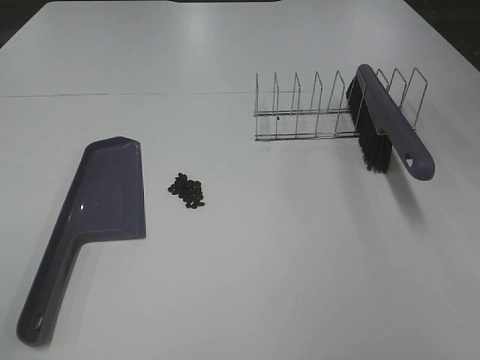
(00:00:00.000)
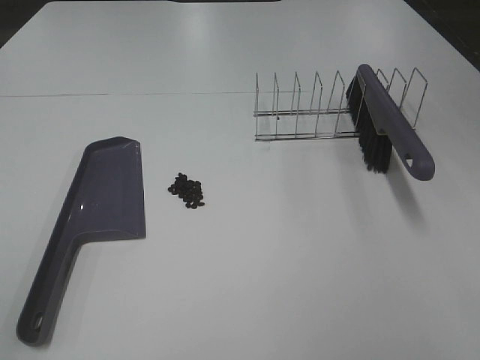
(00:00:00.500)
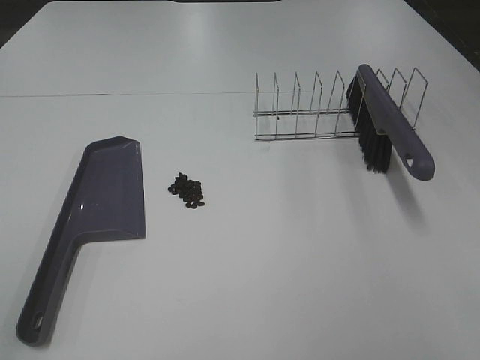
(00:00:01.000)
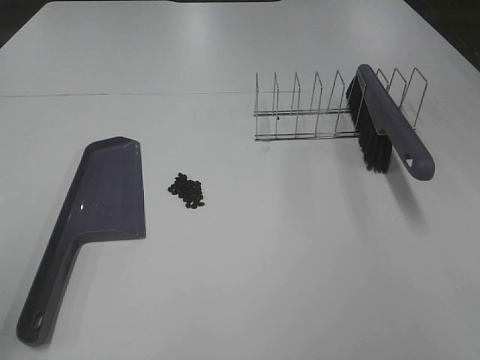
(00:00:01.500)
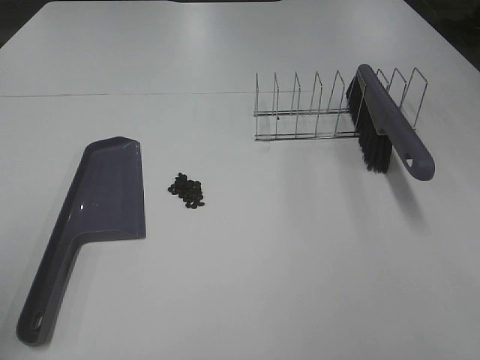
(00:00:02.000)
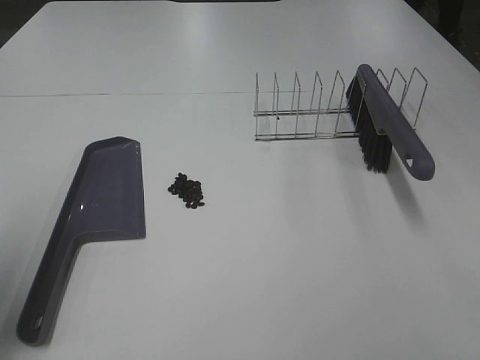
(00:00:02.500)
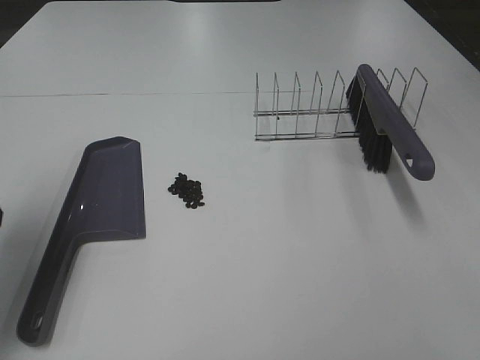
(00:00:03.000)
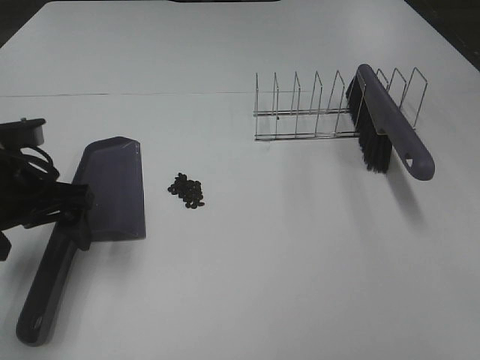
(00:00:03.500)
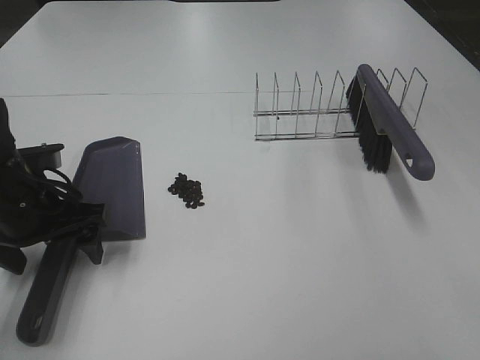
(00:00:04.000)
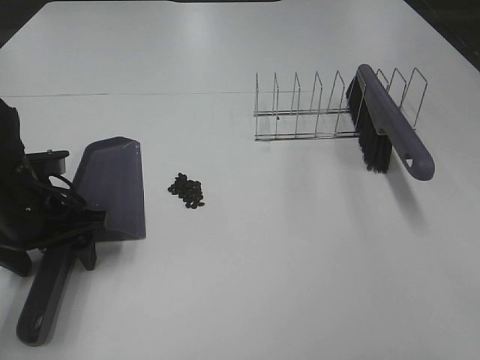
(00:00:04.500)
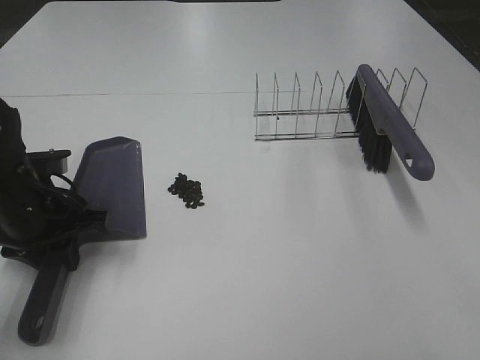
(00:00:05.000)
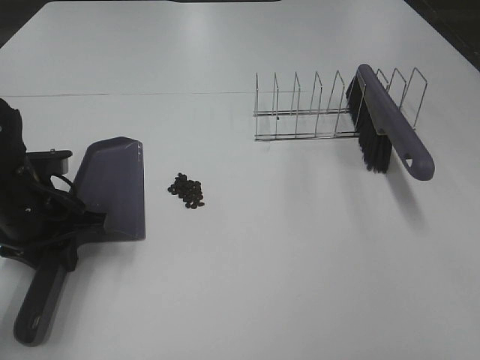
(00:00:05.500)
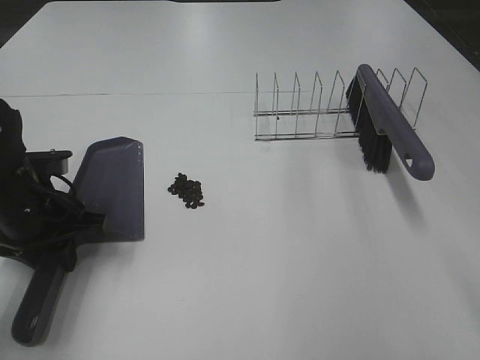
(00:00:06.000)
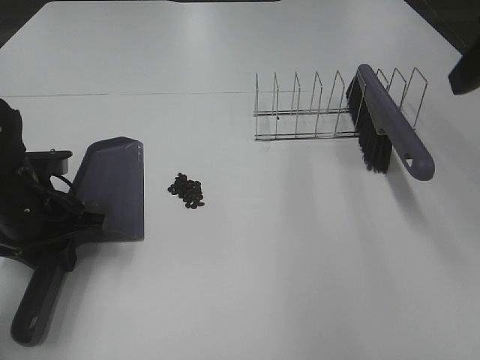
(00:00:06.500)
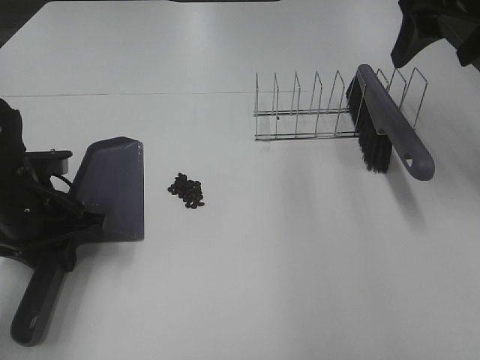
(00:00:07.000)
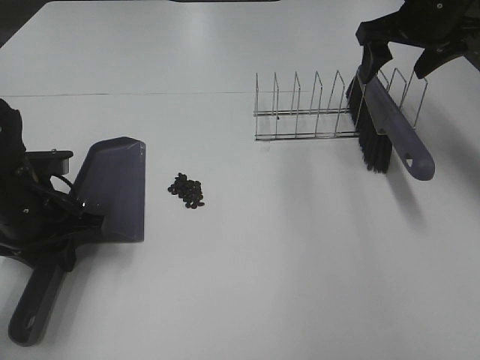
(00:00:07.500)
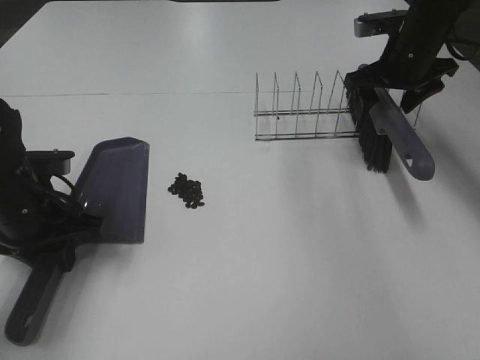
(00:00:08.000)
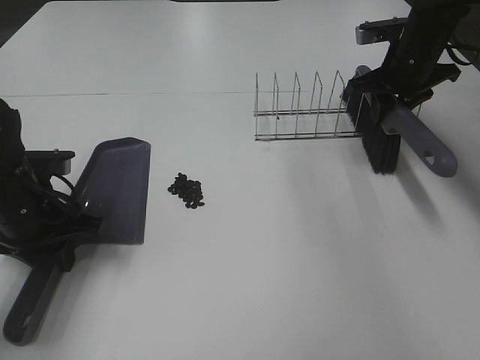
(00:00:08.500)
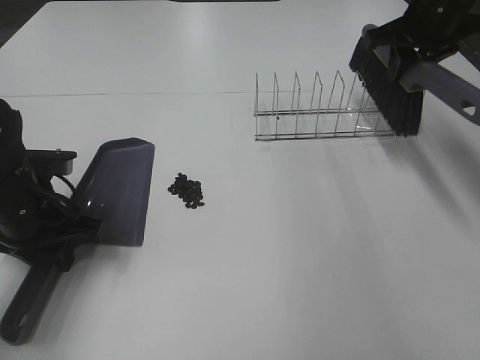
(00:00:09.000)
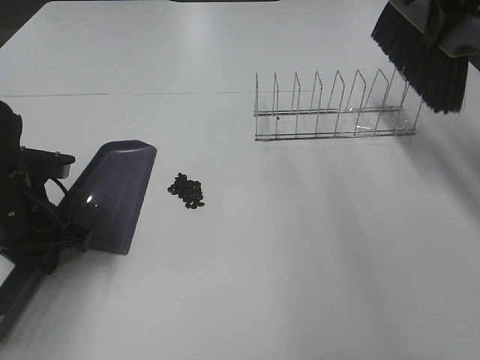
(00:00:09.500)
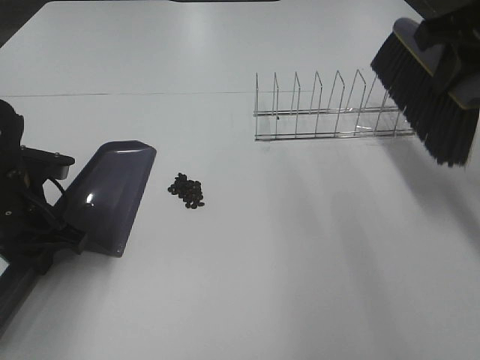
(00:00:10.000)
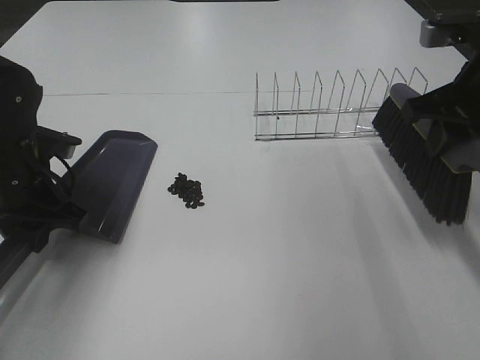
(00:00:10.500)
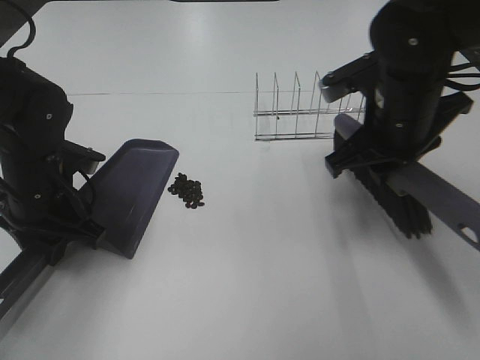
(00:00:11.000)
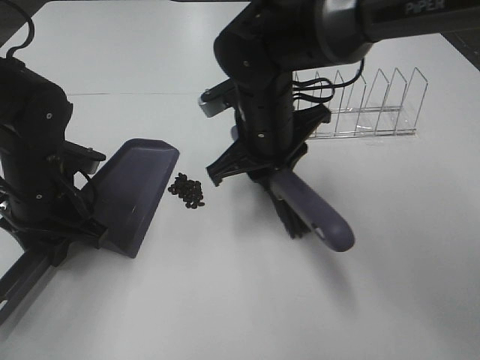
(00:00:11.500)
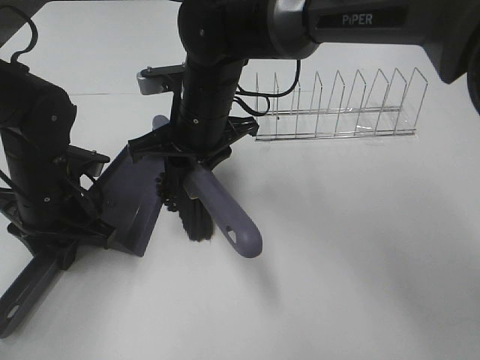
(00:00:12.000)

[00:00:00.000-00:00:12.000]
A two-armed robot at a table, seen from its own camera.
Task of the whole recording: Sweep Coffee Bean.
Step, 00:00:00.000 to 00:00:04.500: Left hand: grab the dustpan.
Step, 00:00:05.000 to 00:00:08.000: Right hand:grab the broom.
00:00:02.000 to 00:00:04.000: The left gripper heads forward, downward and to the right, covering roughly 25 cm.
00:00:04.000 to 00:00:06.000: The left gripper closes up.
00:00:06.000 to 00:00:08.000: The right gripper is displaced forward by some 35 cm.
00:00:08.000 to 00:00:10.000: The right gripper goes some 20 cm backward and upward, and closes its fingers.
00:00:10.000 to 00:00:12.000: The right gripper goes about 30 cm to the left and downward.

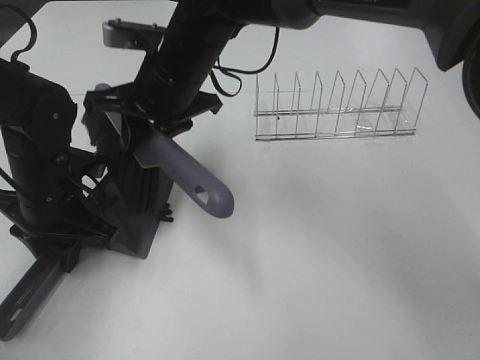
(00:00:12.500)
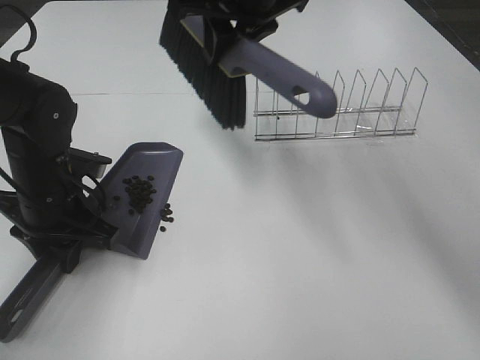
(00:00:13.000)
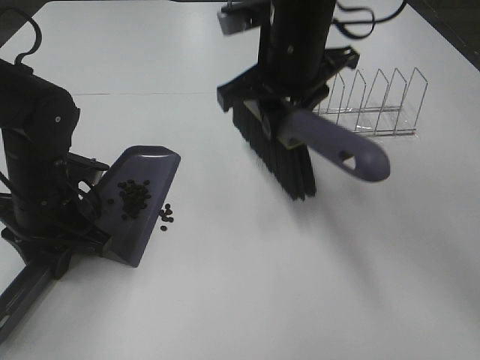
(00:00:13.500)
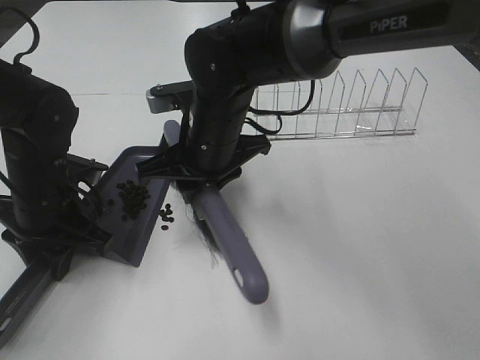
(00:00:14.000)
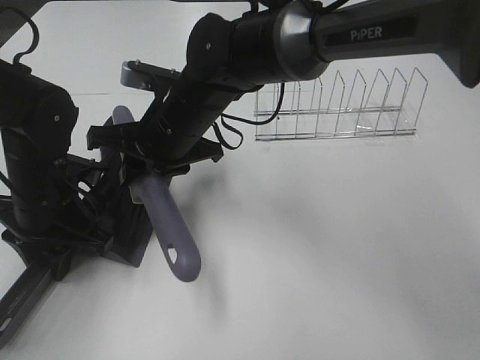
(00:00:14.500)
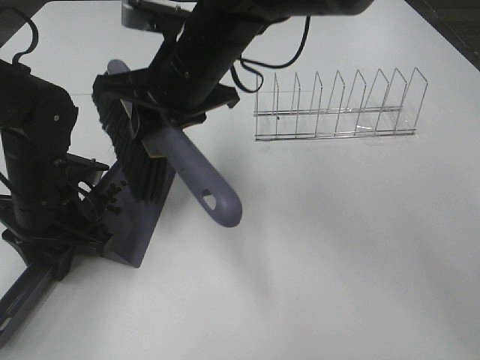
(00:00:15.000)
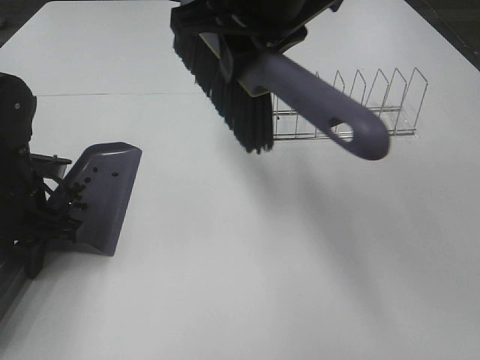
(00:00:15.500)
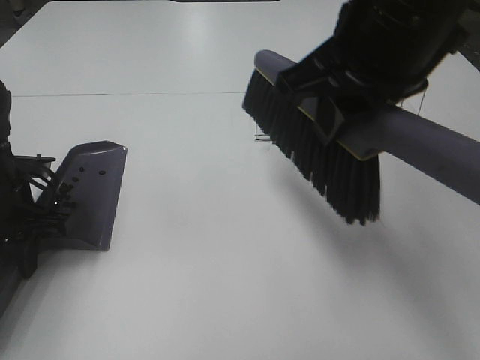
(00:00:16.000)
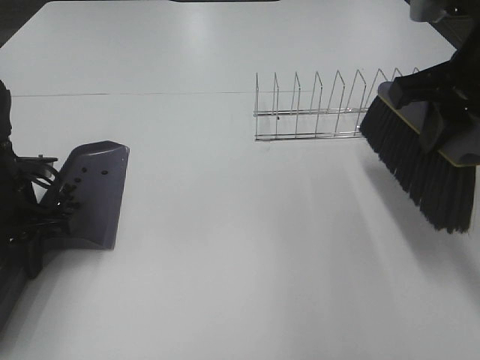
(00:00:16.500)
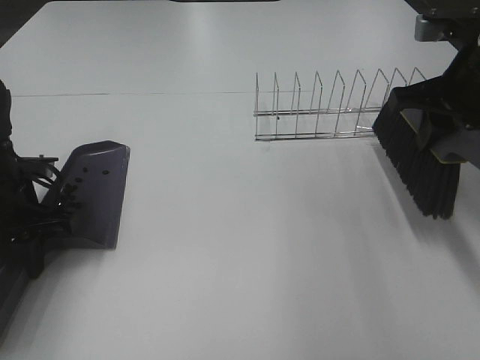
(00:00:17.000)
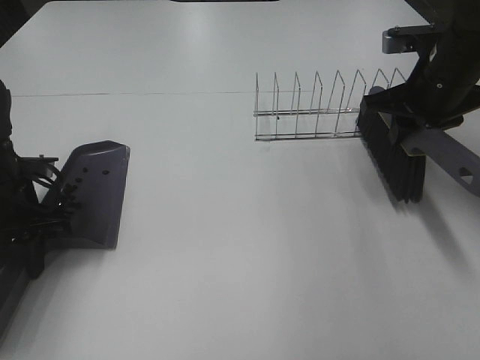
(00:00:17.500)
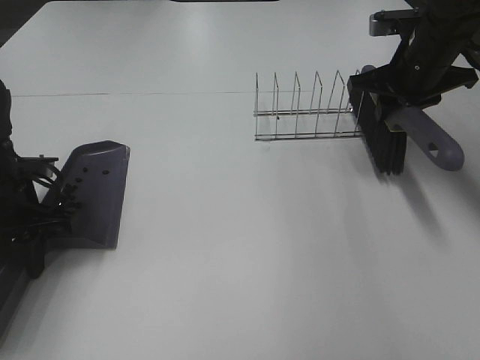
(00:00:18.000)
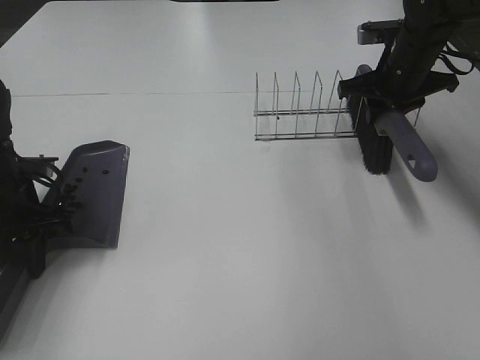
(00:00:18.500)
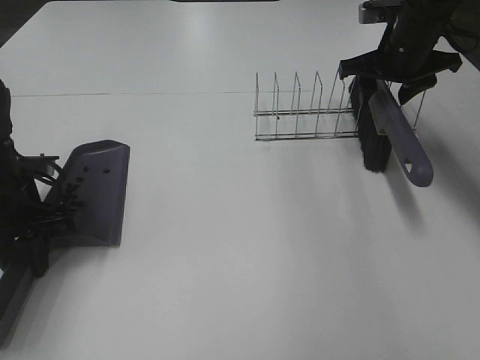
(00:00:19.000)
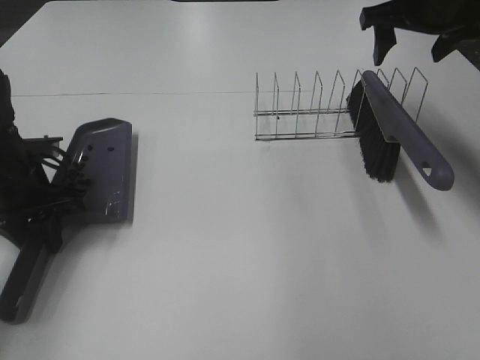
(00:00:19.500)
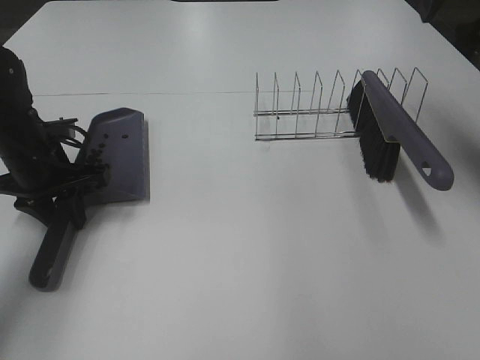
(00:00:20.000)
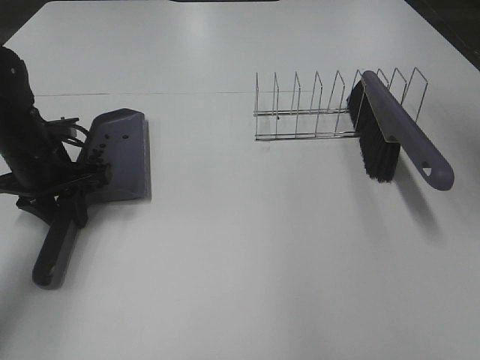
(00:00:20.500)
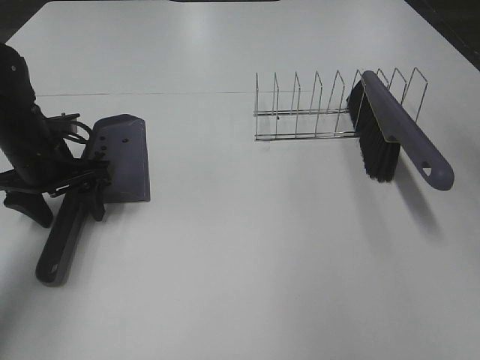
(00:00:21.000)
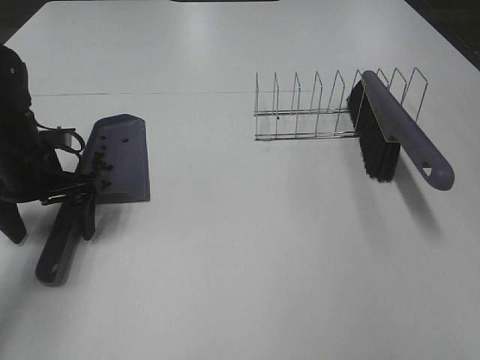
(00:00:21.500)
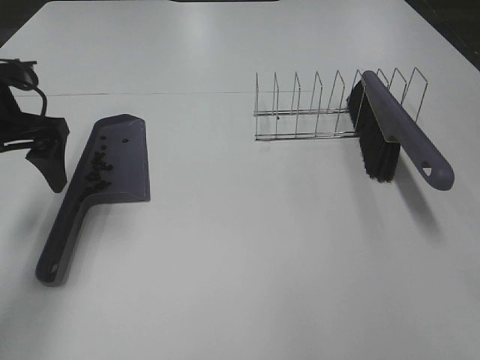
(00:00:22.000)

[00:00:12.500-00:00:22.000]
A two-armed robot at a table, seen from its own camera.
Task of the whole recording: Sweep Coffee Bean.
Step, 00:00:12.500 to 00:00:14.500: Right hand:sweep the coffee beans into the dustpan.
Step, 00:00:15.000 to 00:00:18.500: Right hand:place the broom on the rack.
Step, 00:00:19.000 to 00:00:21.000: Left hand:place the dustpan on the table.
00:00:12.500 to 00:00:14.500: The right gripper moves approximately 10 cm upward and comes back.
00:00:14.500 to 00:00:16.500: The right gripper goes some 30 cm to the right and upward; the left gripper moves to the left, about 5 cm.
00:00:16.500 to 00:00:18.000: The right gripper heads forward and downward, covering about 15 cm.
00:00:18.000 to 00:00:20.000: The right gripper goes some 15 cm upward, and opens. The left gripper moves forward, some 5 cm.
00:00:20.000 to 00:00:22.000: The right gripper is displaced backward by roughly 35 cm, while the left gripper shifts about 10 cm upward, and opens its fingers.

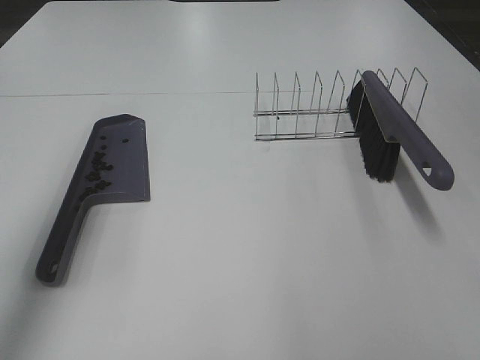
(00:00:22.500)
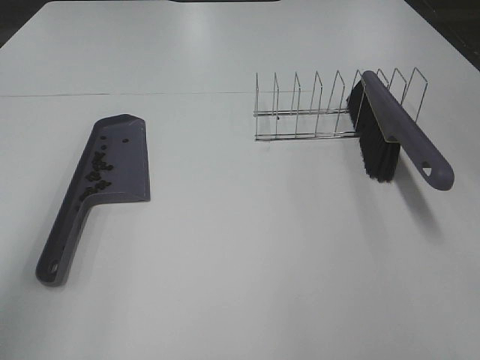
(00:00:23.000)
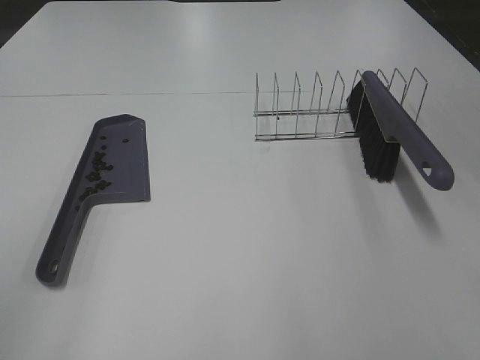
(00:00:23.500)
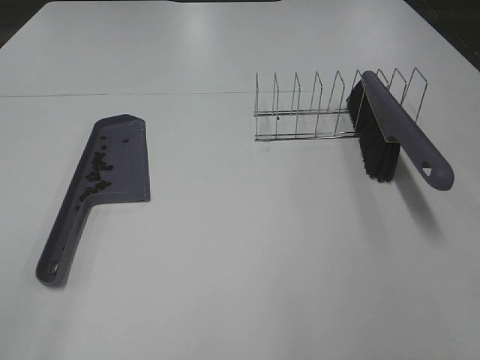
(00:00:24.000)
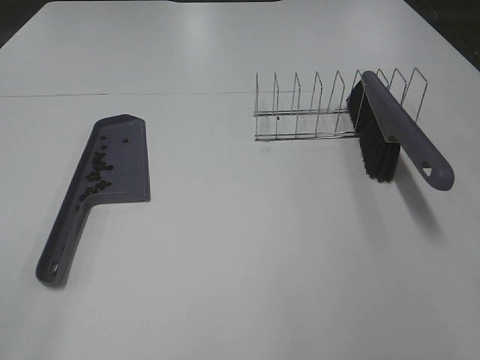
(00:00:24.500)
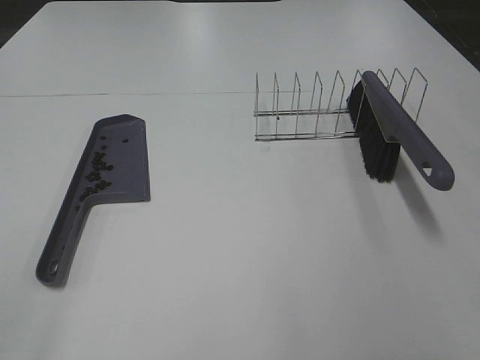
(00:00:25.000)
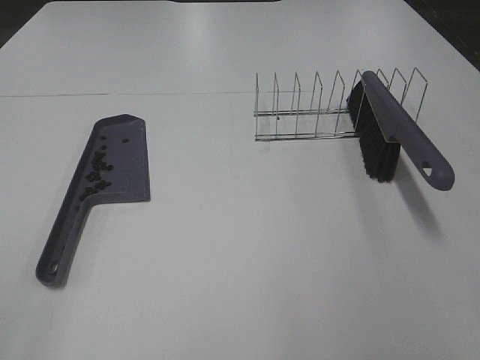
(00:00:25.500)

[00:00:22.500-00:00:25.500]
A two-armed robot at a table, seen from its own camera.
Task of the whole recording: Sweep Coffee Bean.
00:00:22.500 to 00:00:24.000: The left gripper heads backward, covering roughly 25 cm.
